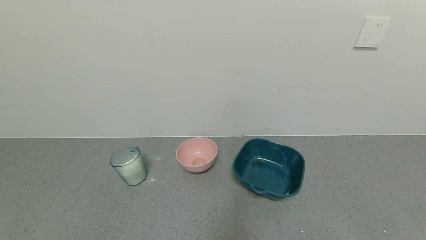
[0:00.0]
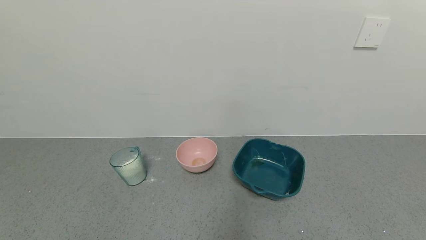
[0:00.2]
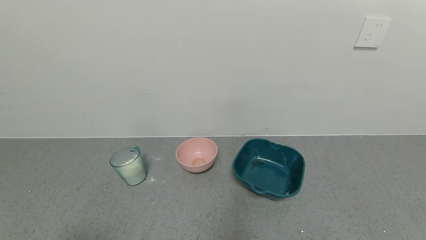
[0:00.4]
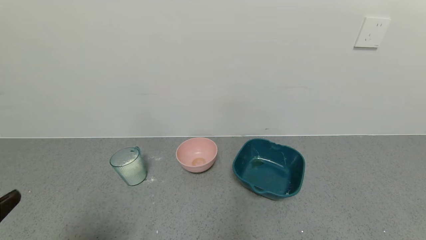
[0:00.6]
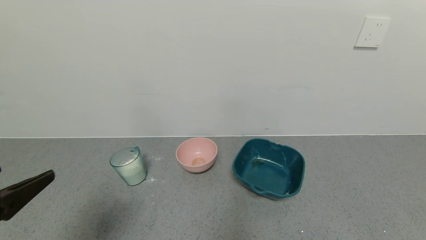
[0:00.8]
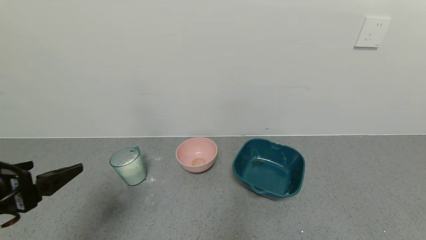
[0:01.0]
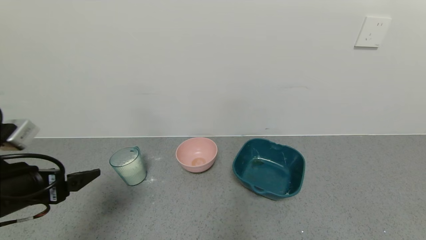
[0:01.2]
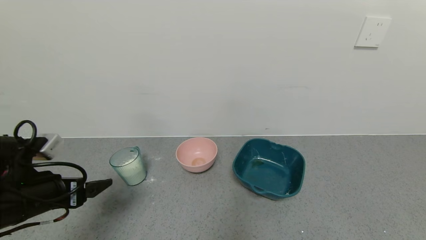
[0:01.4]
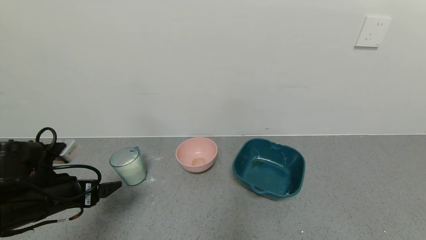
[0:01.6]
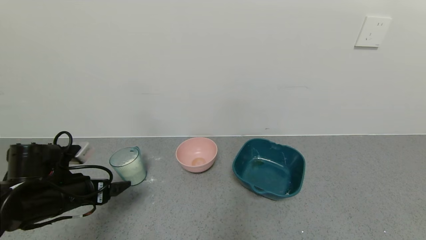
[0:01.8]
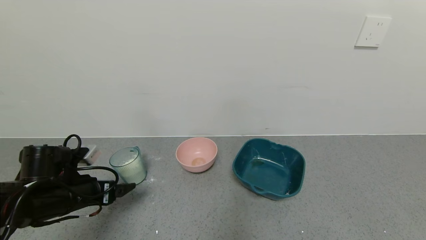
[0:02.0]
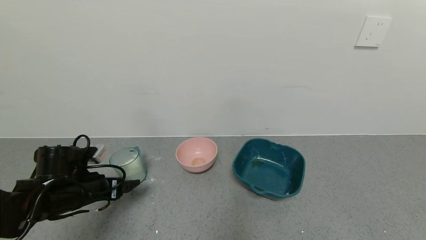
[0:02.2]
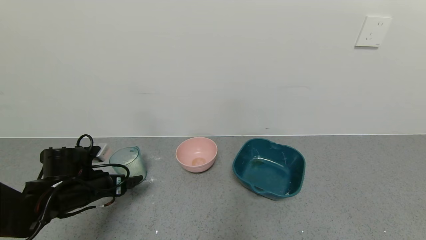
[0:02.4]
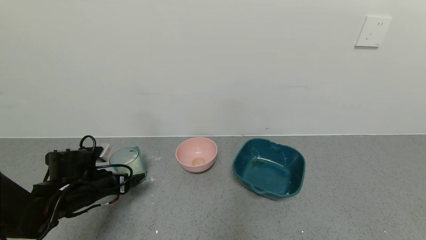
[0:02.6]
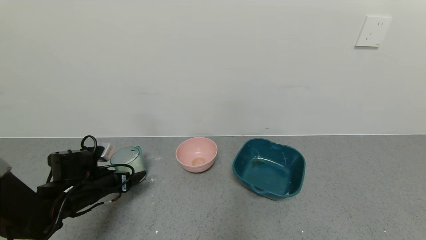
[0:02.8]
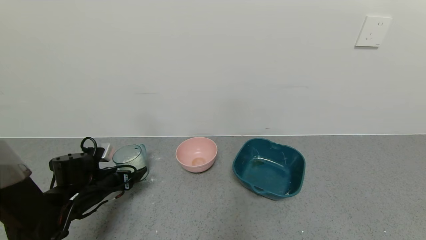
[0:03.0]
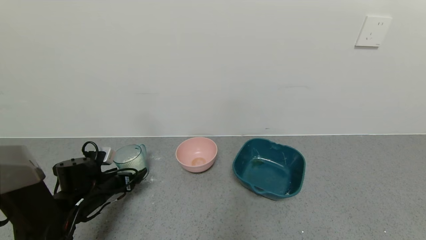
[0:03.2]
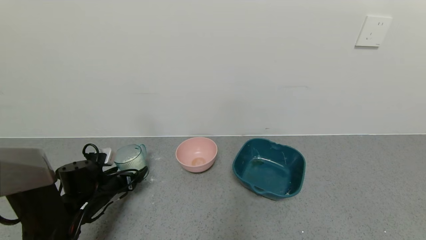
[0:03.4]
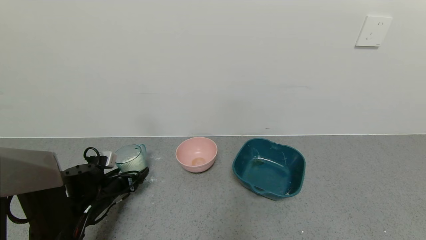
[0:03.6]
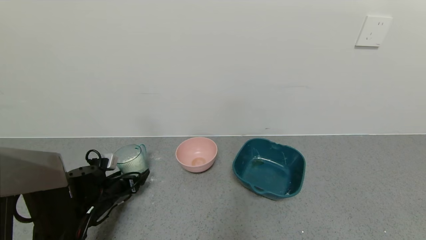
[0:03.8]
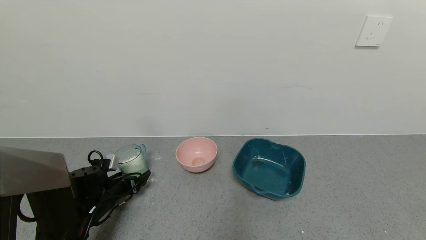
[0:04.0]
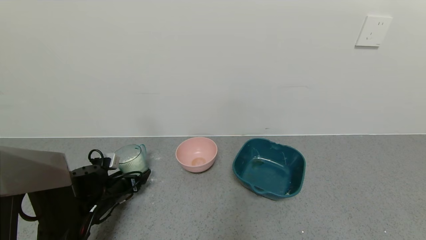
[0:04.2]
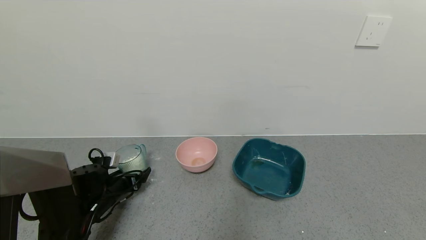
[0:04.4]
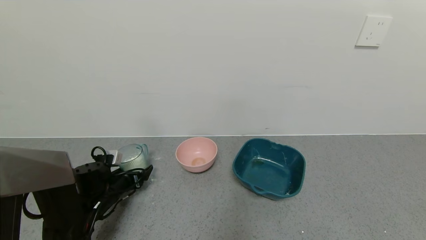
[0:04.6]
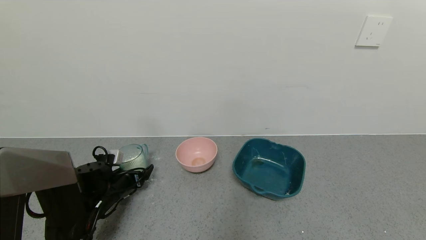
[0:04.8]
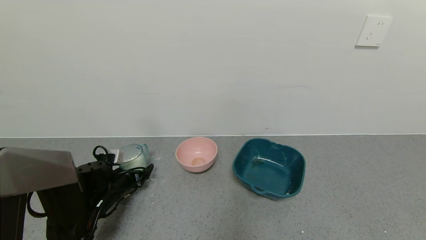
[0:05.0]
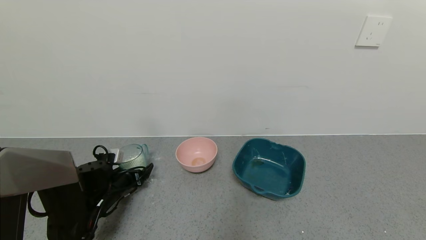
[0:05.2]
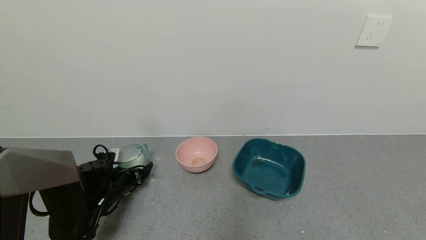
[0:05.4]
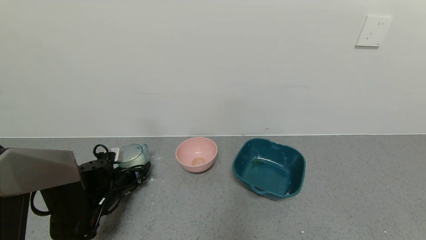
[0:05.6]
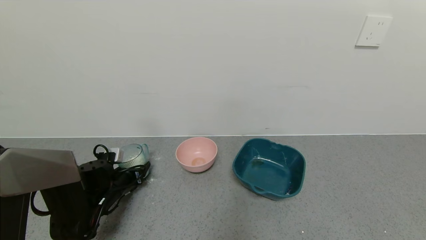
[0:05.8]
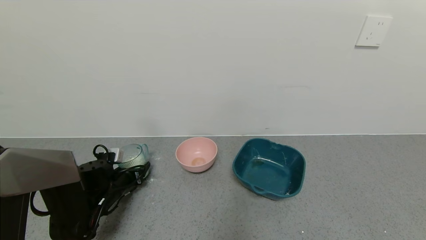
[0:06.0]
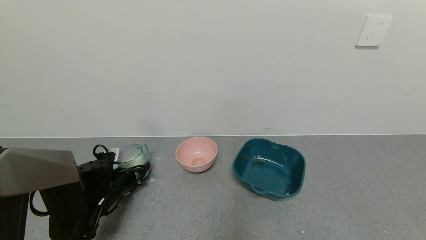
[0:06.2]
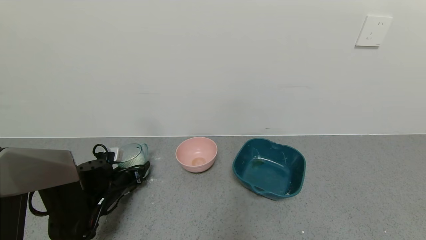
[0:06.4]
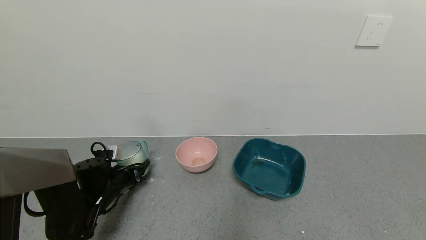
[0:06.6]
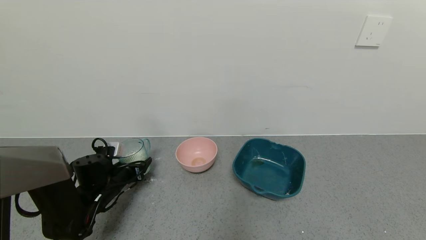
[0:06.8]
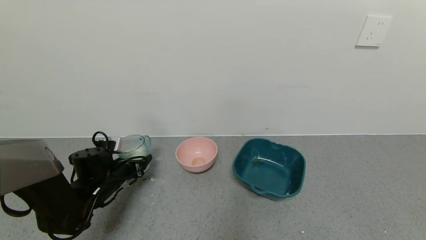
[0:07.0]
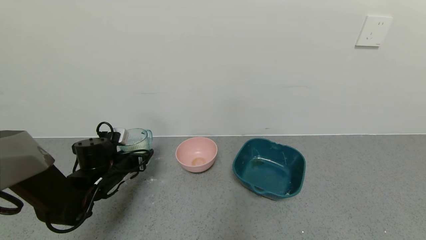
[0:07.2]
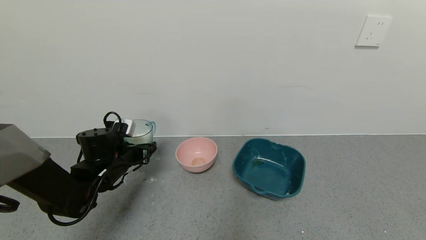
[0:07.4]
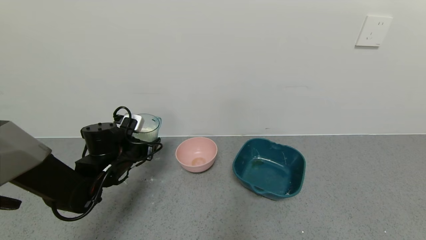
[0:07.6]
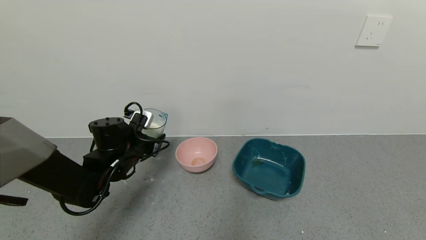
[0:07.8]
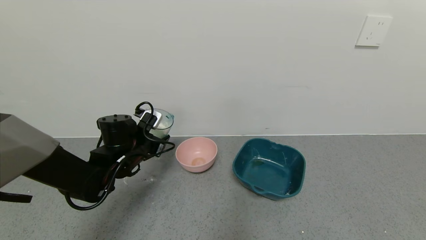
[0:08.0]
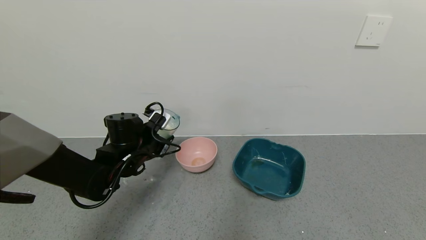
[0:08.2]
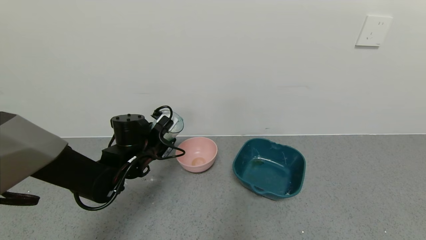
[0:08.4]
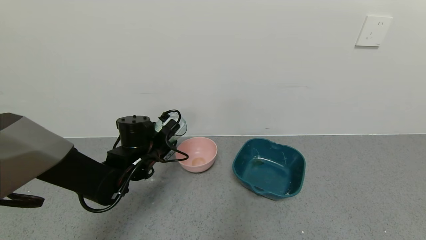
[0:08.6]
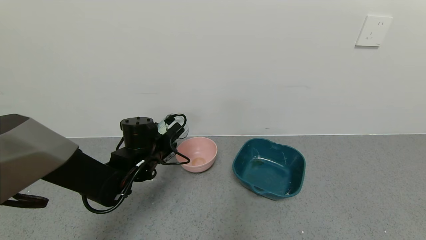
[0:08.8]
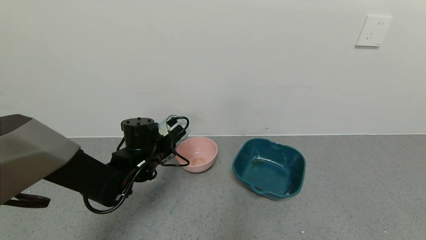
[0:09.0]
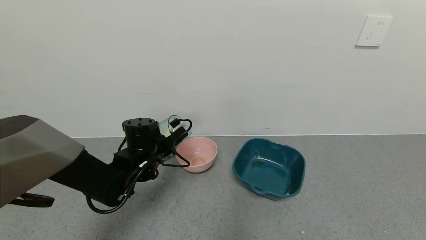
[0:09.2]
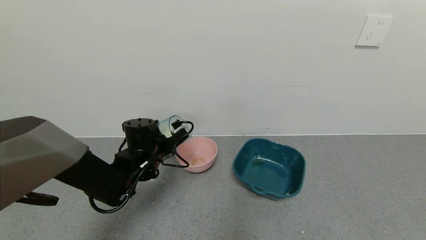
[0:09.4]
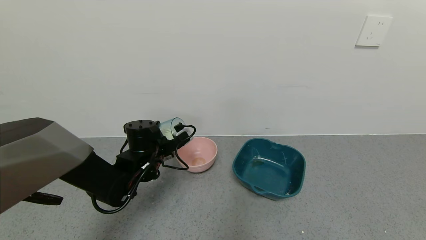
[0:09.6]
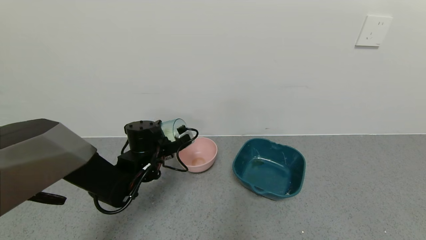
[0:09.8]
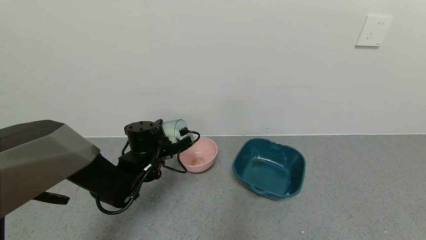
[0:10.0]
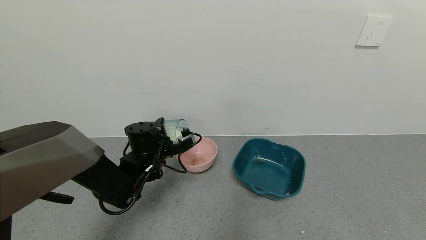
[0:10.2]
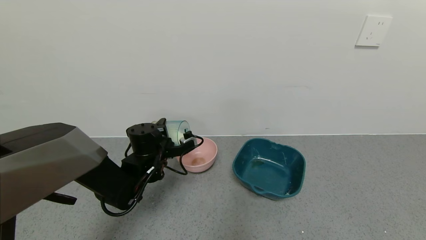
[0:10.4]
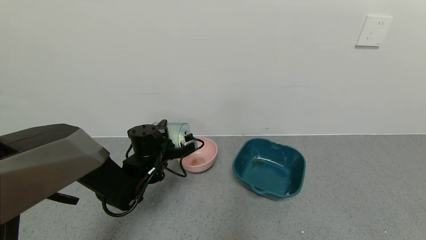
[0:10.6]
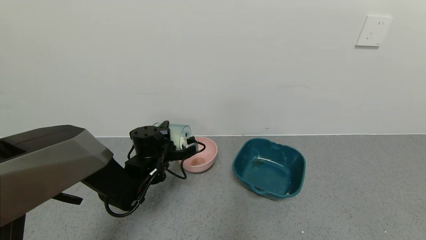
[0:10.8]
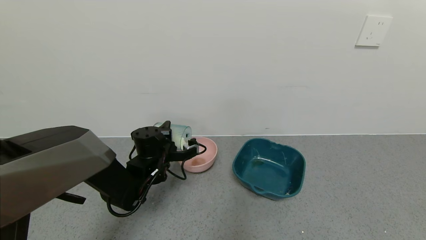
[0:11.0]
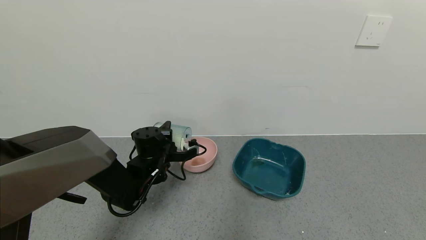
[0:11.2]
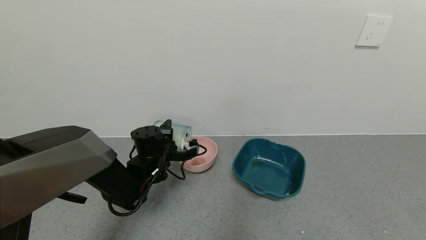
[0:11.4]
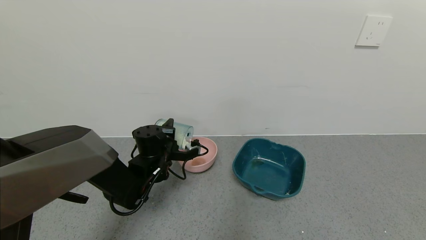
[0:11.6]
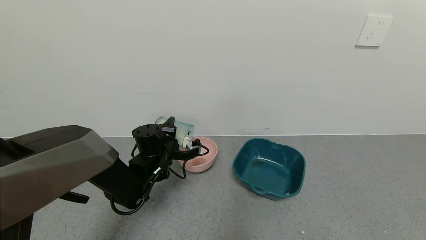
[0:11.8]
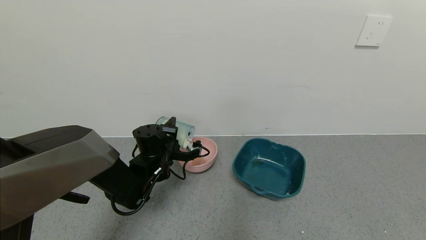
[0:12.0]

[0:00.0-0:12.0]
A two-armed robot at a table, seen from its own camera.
Task of the whole recording: use a gripper to pick up the cup and pour the powder into a bowl or tray.
Step, 0:00.0 to 0:05.8: Grasp the glass of powder with the left gripper.
0:00.0 to 0:01.6: The left gripper is displaced forward by about 25 cm.
0:01.6 to 0:03.0: The left gripper travels downward and forward by approximately 15 cm.
0:03.0 to 0:04.4: The left gripper moves roughly 5 cm.
0:04.4 to 0:06.0: The left gripper closes up.
0:06.0 to 0:07.6: The left gripper is displaced upward and to the right by about 10 cm.
0:07.6 to 0:09.0: The left gripper moves to the right, some 5 cm.
0:10.4 to 0:12.0: The grippers move only a little.

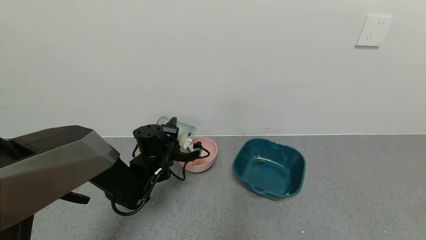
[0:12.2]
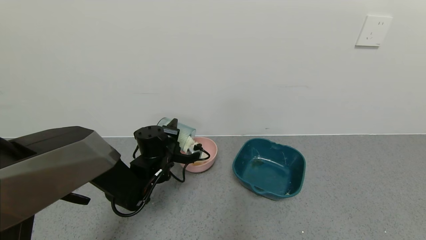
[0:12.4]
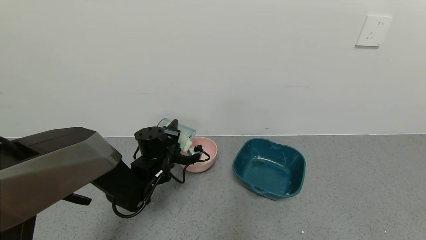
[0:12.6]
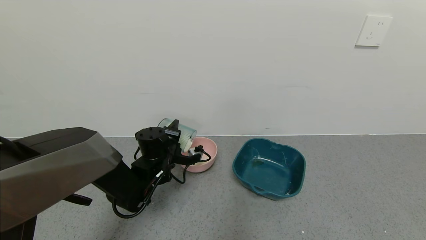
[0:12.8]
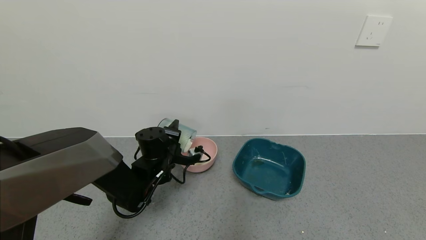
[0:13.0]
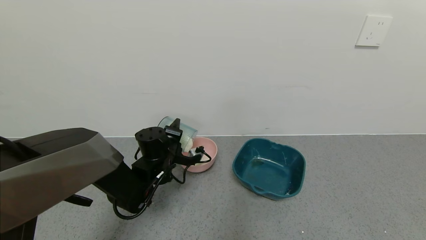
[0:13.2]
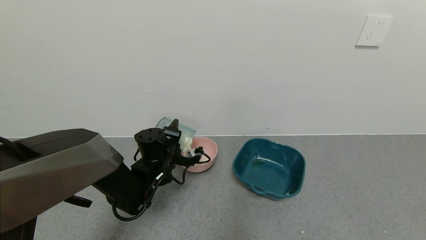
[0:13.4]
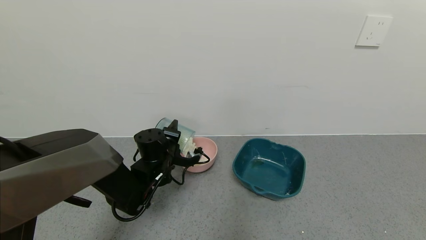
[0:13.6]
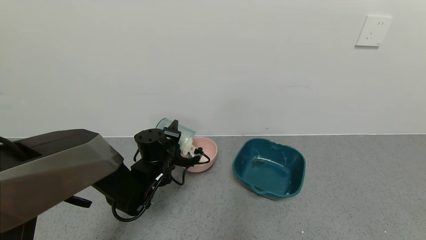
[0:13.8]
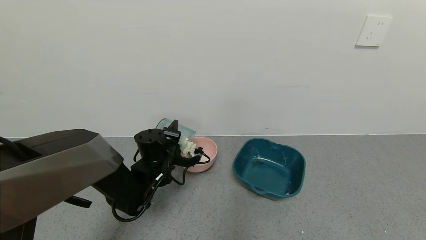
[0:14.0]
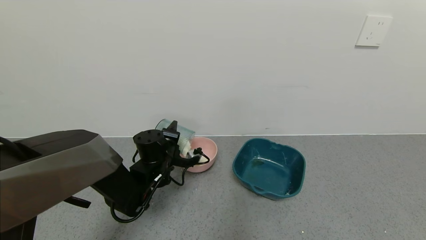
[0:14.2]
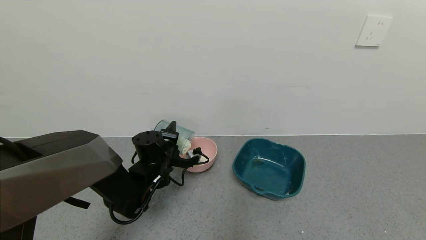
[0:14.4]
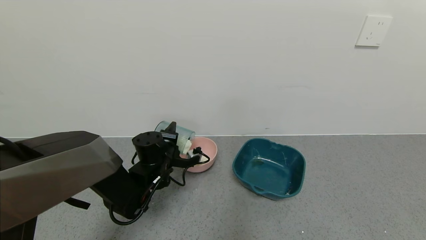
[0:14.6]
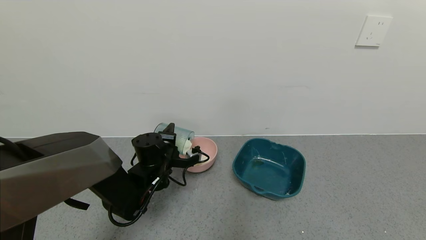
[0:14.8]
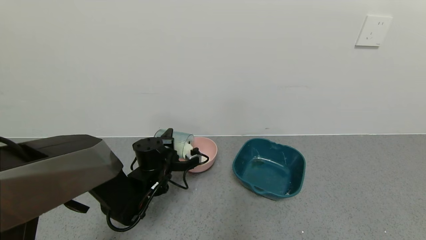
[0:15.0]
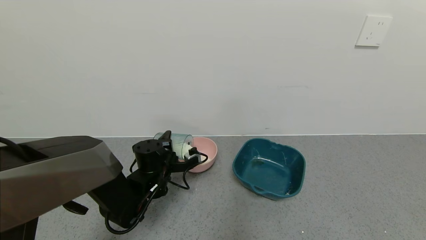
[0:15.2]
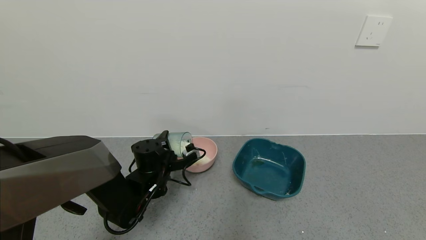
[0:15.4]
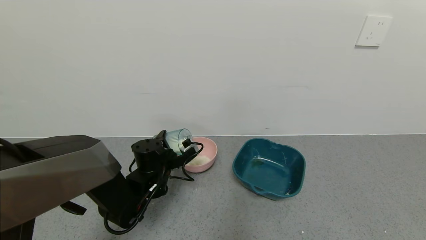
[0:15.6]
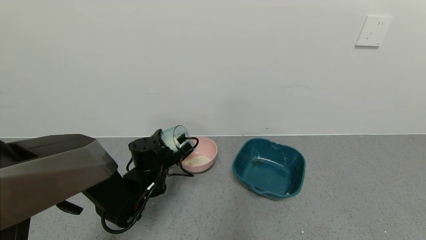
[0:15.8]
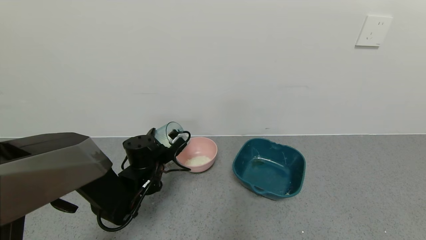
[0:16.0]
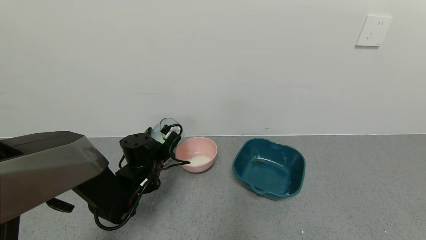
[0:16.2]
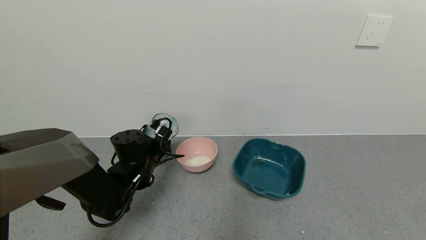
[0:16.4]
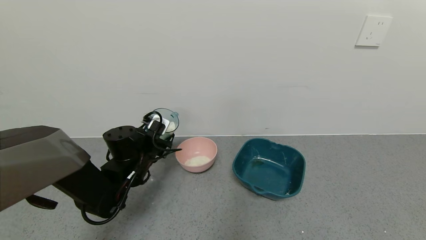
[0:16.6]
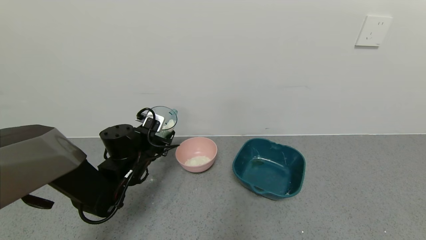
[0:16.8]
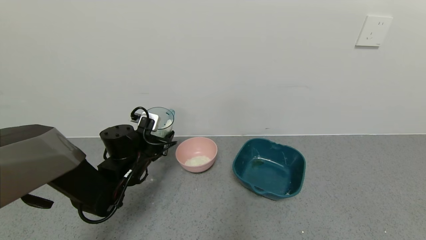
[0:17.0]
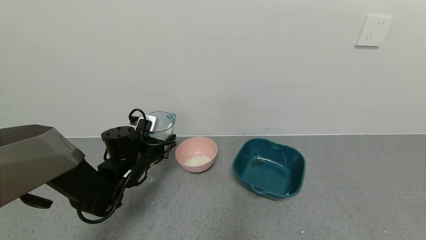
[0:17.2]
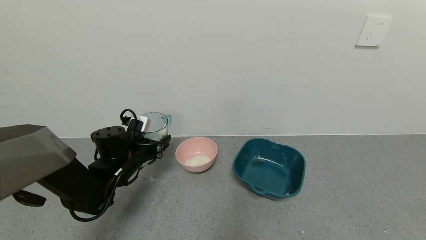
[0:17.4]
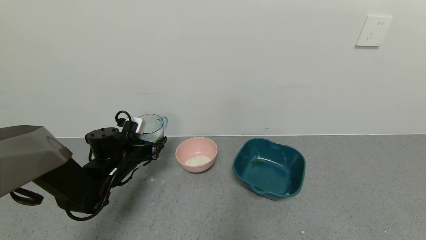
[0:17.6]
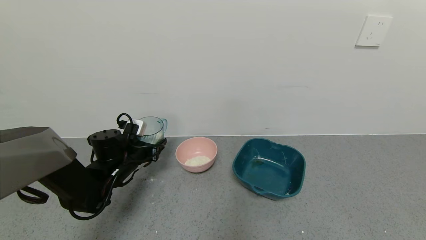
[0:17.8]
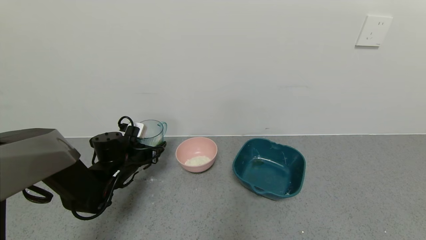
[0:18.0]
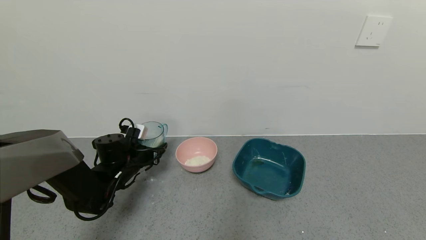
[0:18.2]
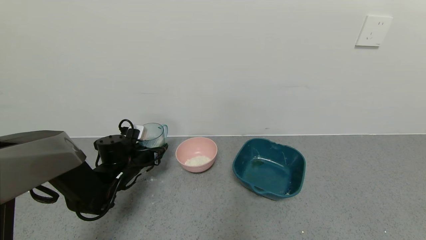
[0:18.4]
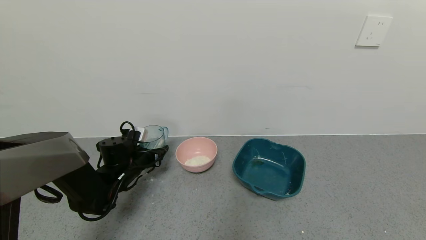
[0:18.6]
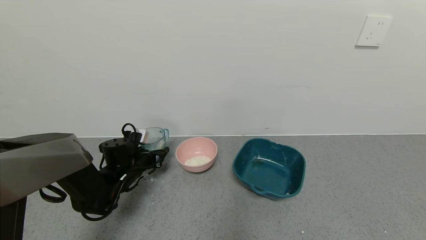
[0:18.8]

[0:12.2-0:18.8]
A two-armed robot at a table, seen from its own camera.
Task of the whole recording: use a gripper to pick up the cup and pour the powder into a bowl or tray.
Step, 0:12.2 to 0:14.6: Pour the powder into the pink bowl with the left gripper.
0:12.2 to 0:13.8: The grippers make only small movements.
0:15.4 to 0:17.2: The left gripper travels to the left by some 5 cm.
0:17.2 to 0:18.8: The left gripper is displaced downward by about 5 cm.
